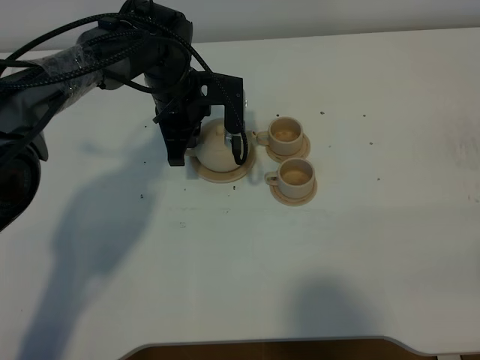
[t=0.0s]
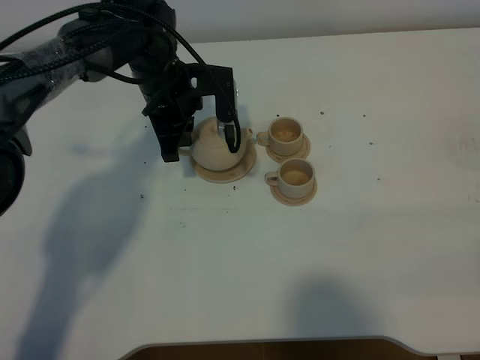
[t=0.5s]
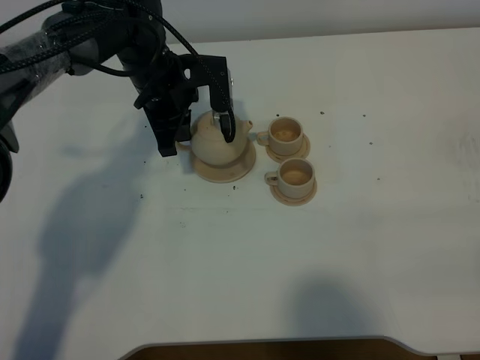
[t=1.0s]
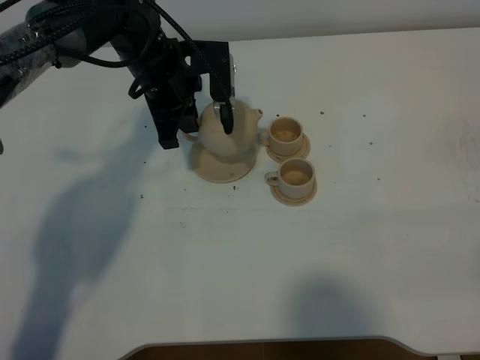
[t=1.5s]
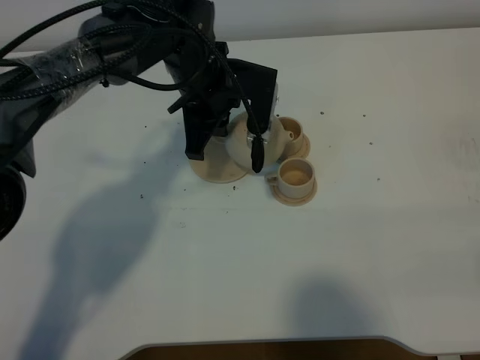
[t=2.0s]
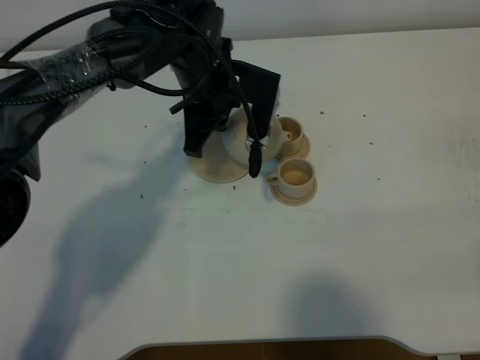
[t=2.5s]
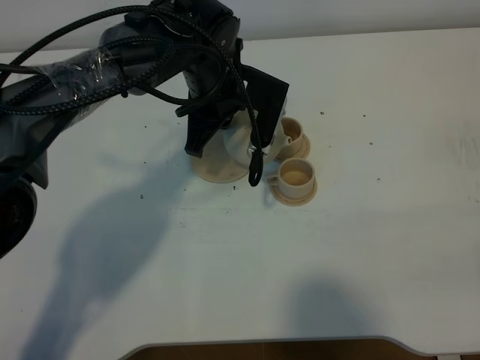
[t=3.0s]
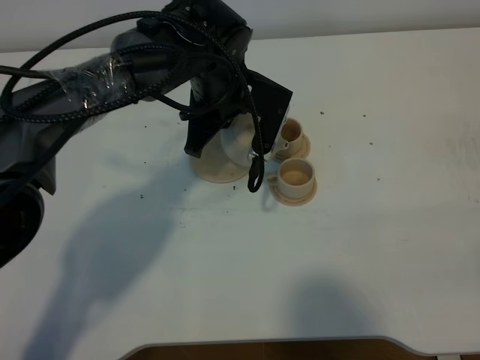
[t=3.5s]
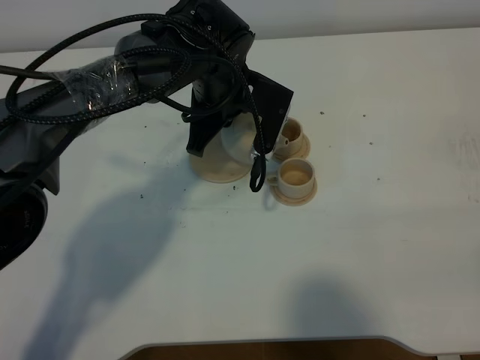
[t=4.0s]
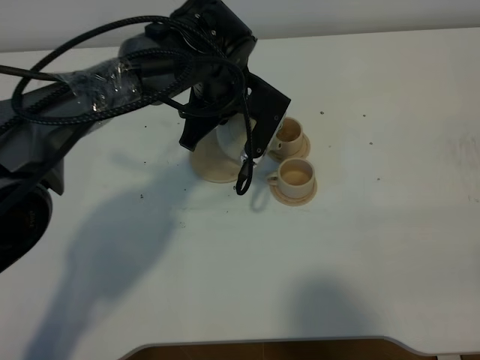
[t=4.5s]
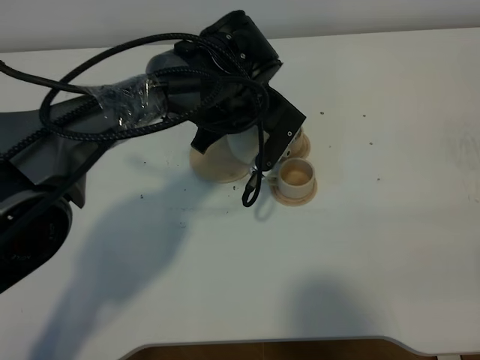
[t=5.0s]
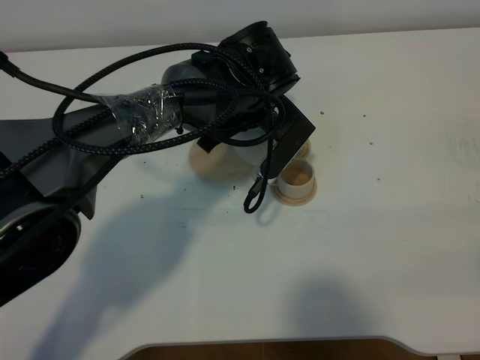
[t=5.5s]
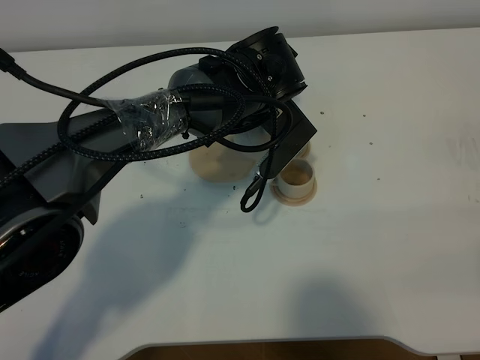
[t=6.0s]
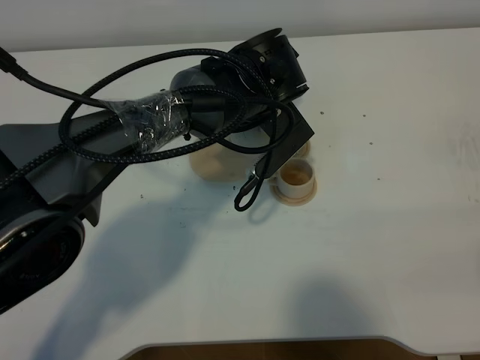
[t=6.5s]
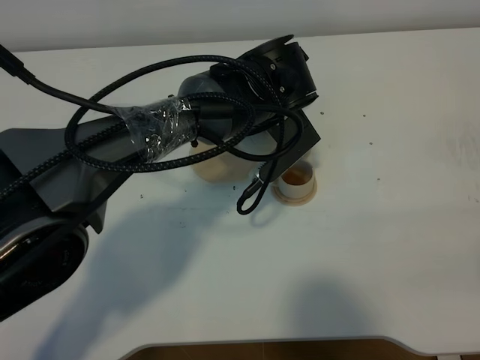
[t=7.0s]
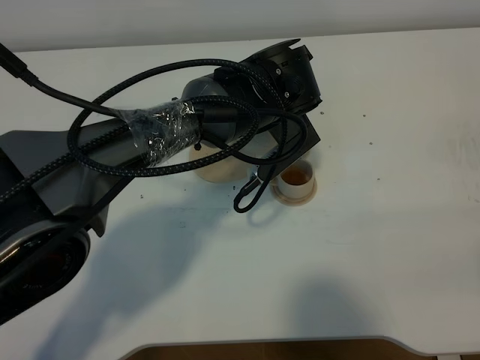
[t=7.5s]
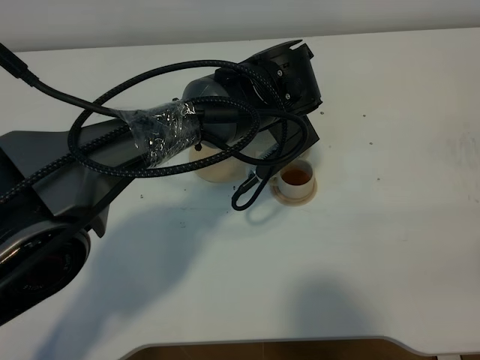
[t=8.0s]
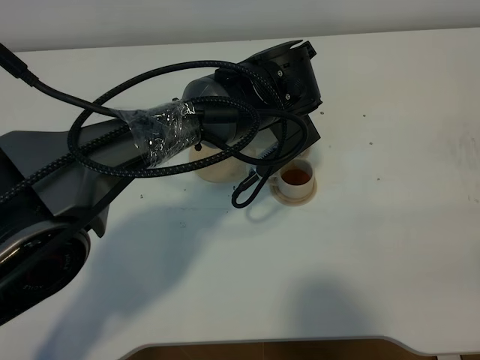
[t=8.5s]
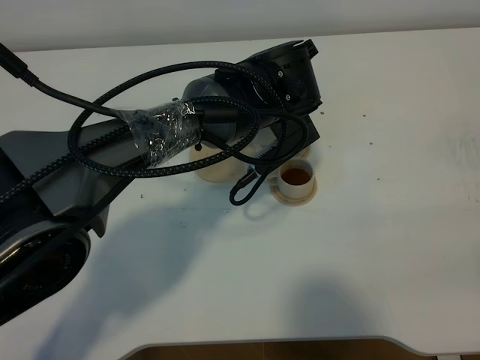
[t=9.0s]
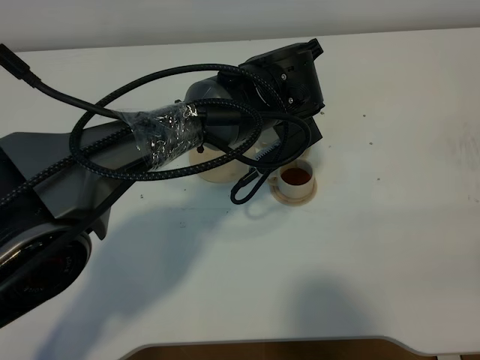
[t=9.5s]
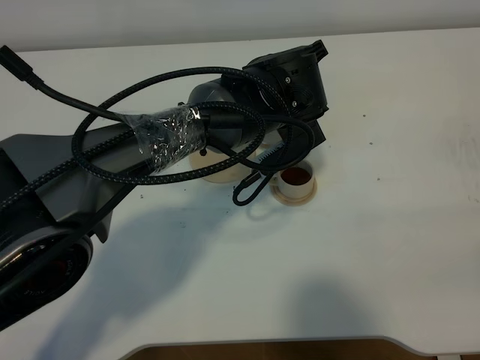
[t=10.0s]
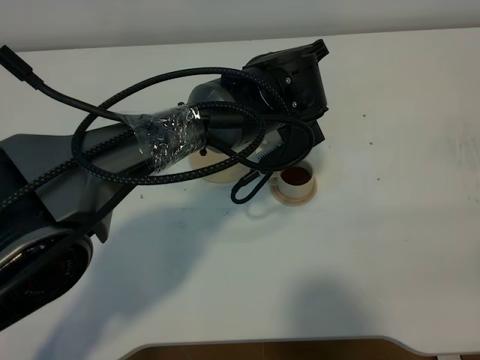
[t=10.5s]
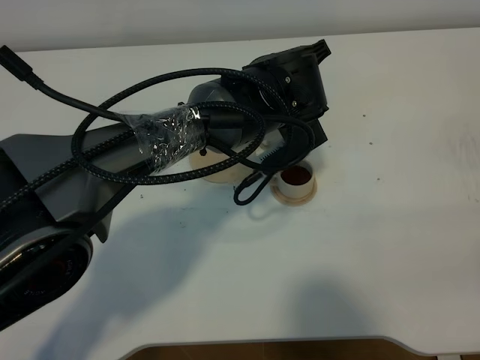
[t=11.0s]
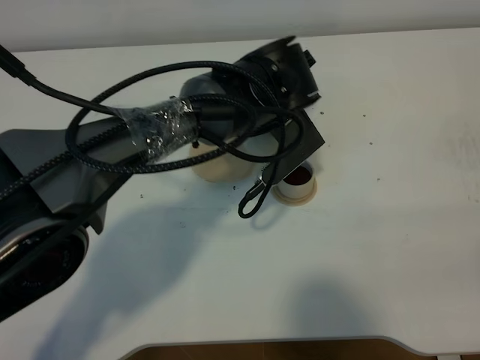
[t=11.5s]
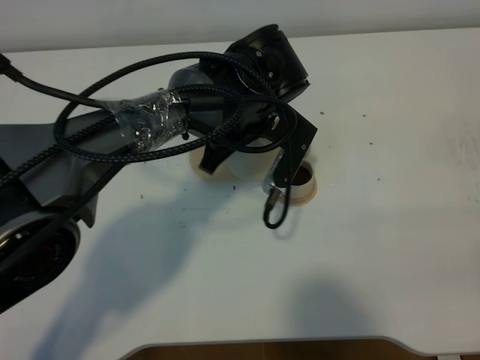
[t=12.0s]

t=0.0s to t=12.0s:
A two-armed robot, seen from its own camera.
Task of the whole recording: grasp the brown teapot and pour the tea into the two brown teacups one by one, put the brown teapot back in its original place.
t=0.0s to t=2.0s: The left gripper shifts by some 5 cm.
t=2.0s to t=4.0s: There are only small adjustments of the grippers.
t=6.0s to t=10.0s: The grippers make only small movements.

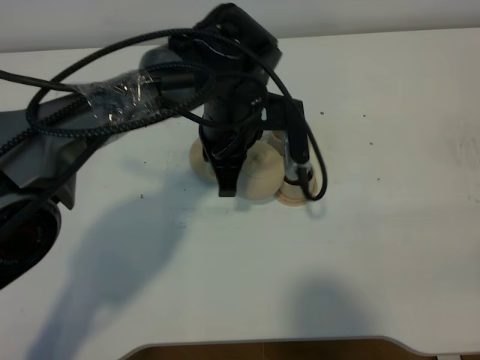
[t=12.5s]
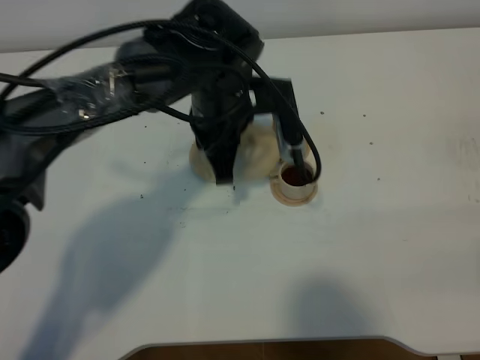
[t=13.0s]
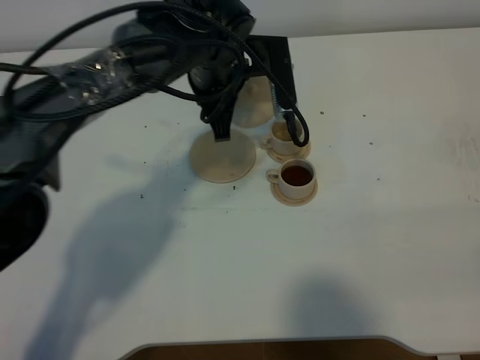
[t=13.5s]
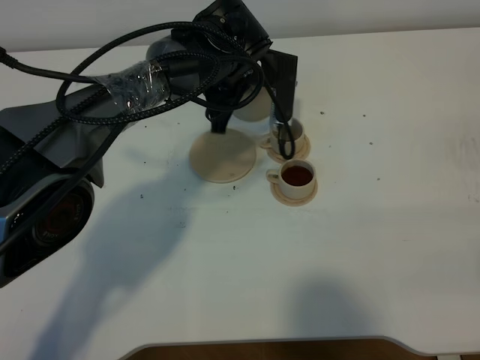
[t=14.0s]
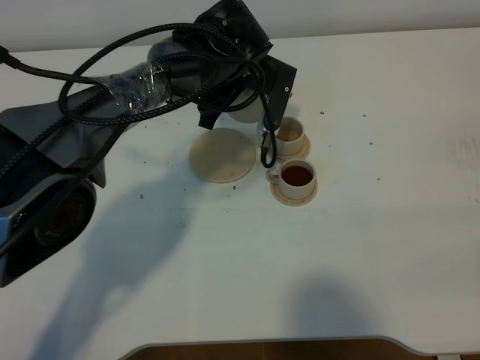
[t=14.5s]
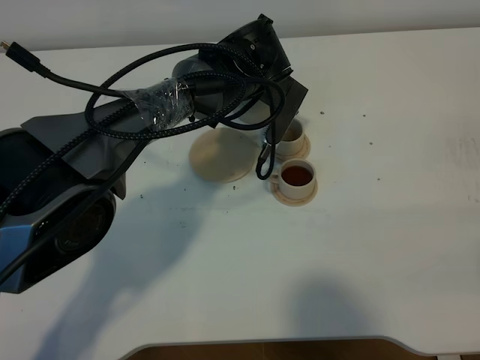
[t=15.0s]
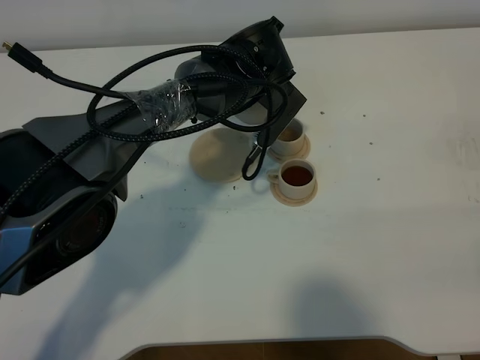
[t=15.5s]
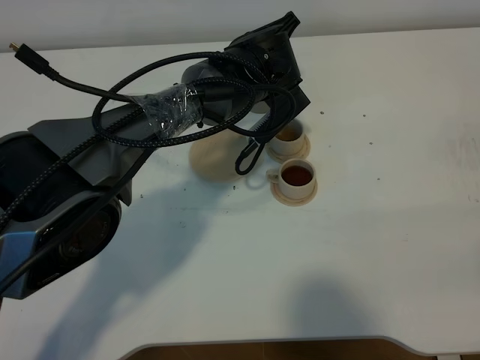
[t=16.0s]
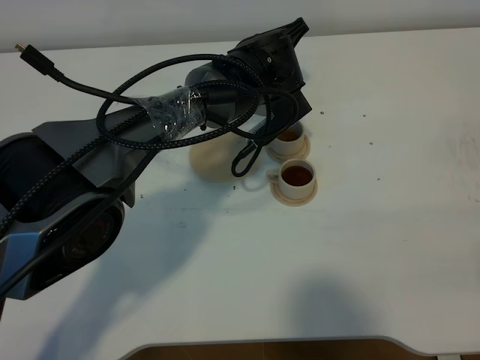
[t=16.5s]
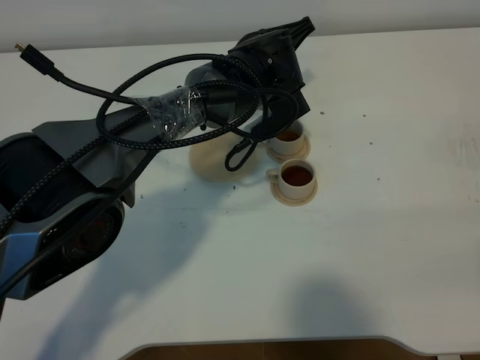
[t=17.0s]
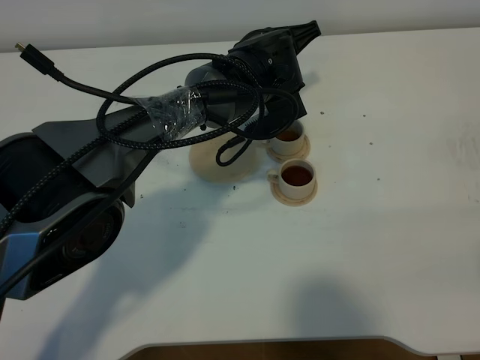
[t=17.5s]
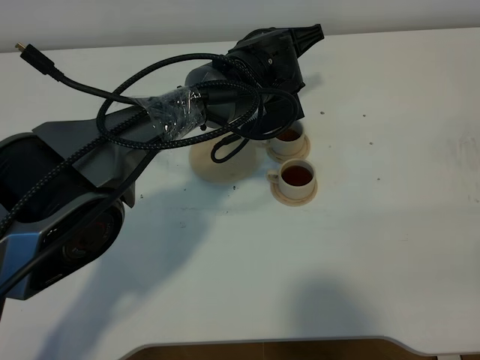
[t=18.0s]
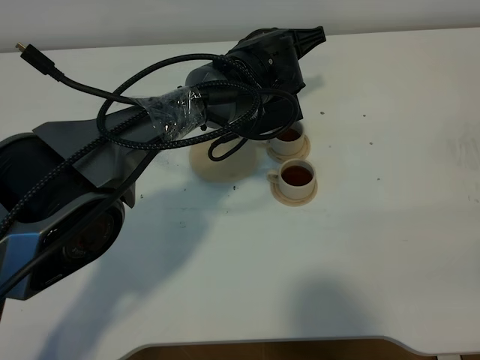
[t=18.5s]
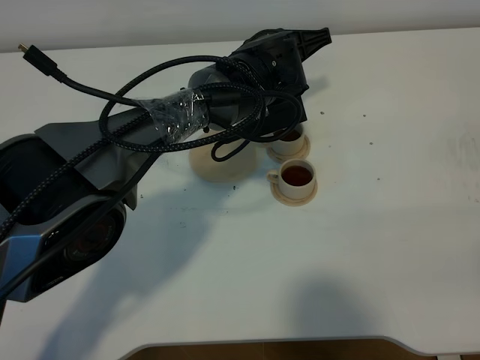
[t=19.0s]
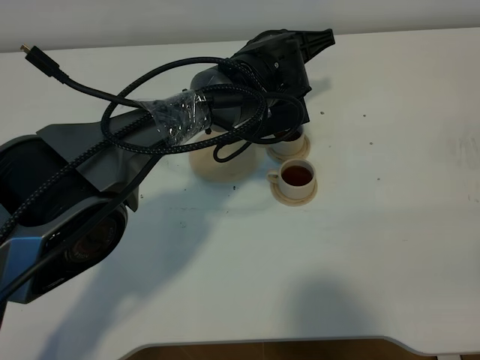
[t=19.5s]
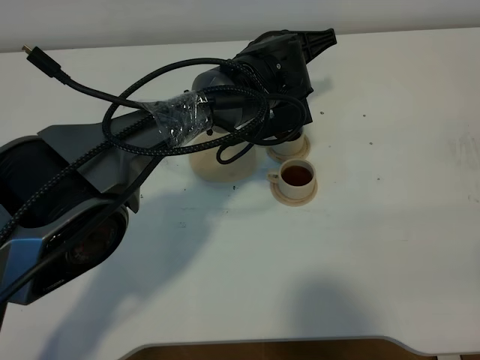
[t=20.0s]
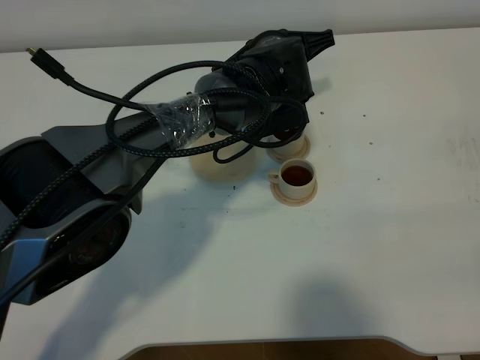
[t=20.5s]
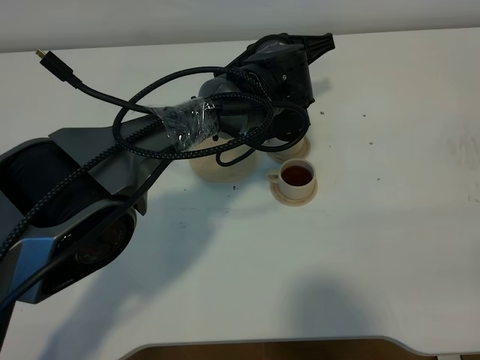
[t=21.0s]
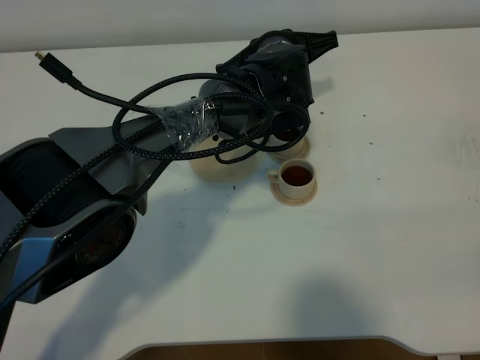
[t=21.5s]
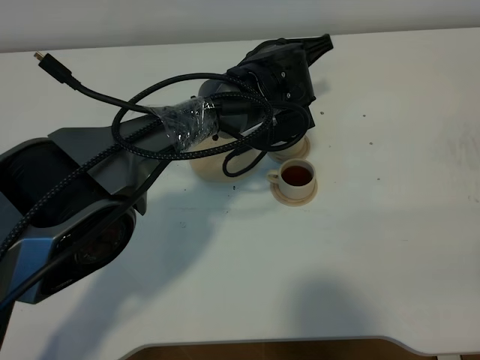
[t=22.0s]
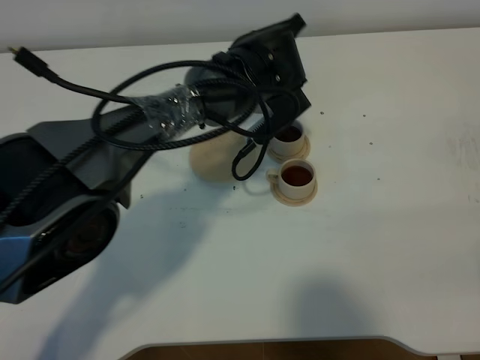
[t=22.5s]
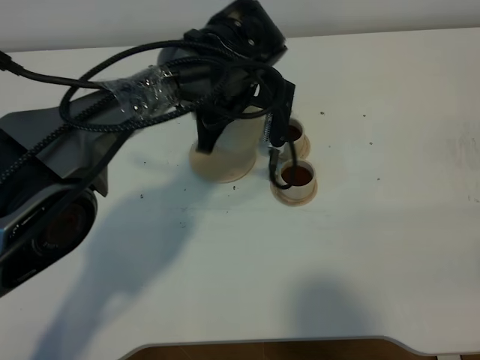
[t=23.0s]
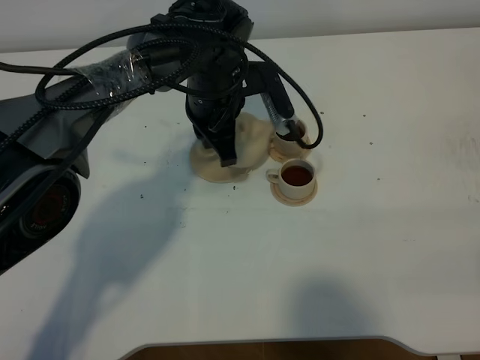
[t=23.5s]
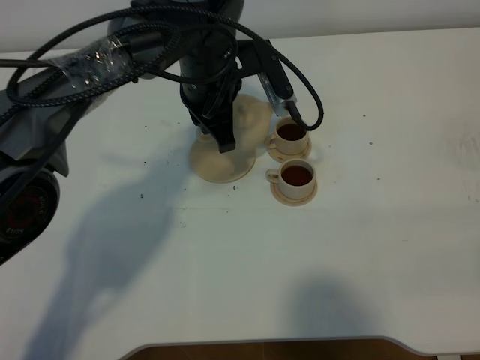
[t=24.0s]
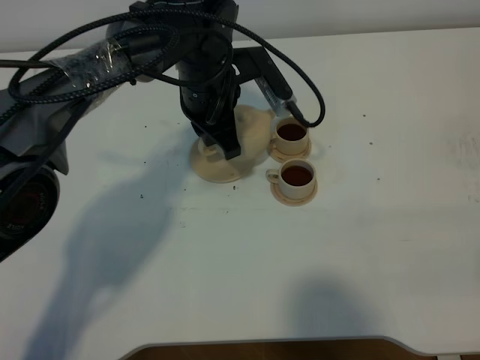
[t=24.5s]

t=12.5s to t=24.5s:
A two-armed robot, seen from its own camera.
Task of the whole recording: grasp the brown teapot and pour the tea into the two brown teacups one by one, put the brown teapot back in its original place.
Step, t=12.5s to t=22.5s: Pour tea into the teacup with the left gripper.
t=12.5s to t=14.5s: The left gripper moves forward, approximately 10 cm.
t=16.5s to t=18.5s: There are only small adjustments of the grippers.
t=18.5s to t=20.5s: The two grippers keep their place.
t=22.5s to t=24.5s: The left gripper moves to the left, some 5 cm.

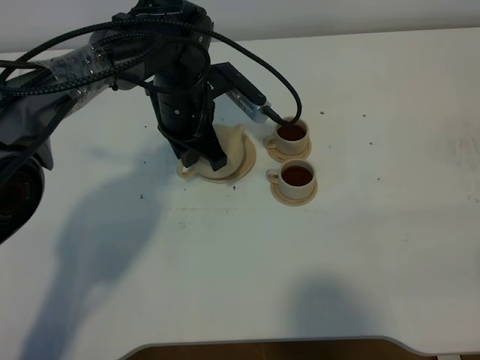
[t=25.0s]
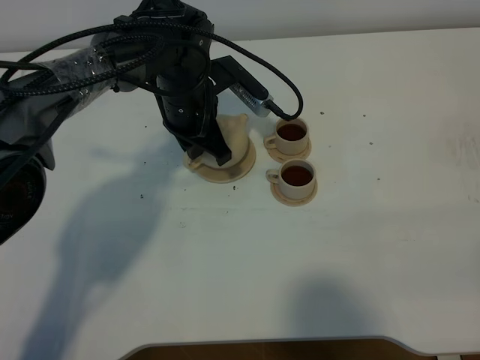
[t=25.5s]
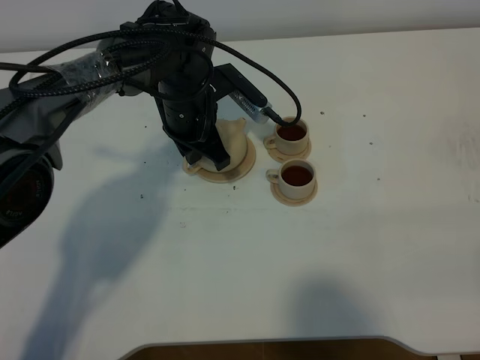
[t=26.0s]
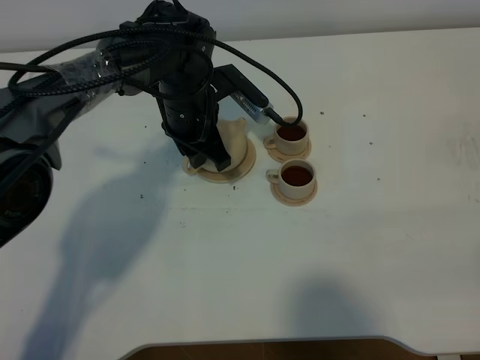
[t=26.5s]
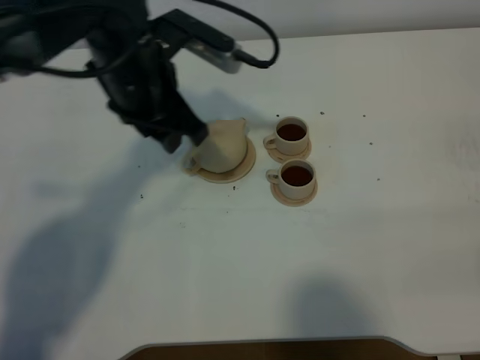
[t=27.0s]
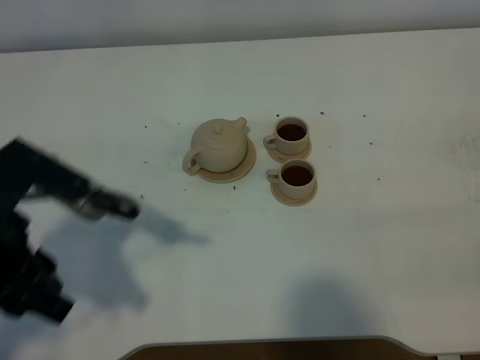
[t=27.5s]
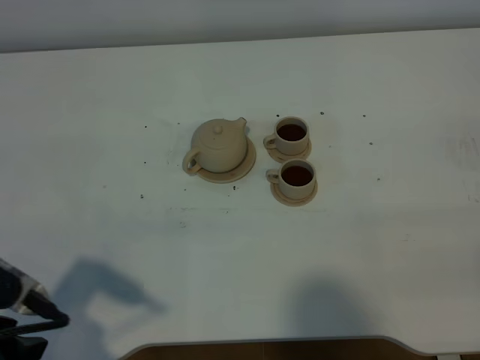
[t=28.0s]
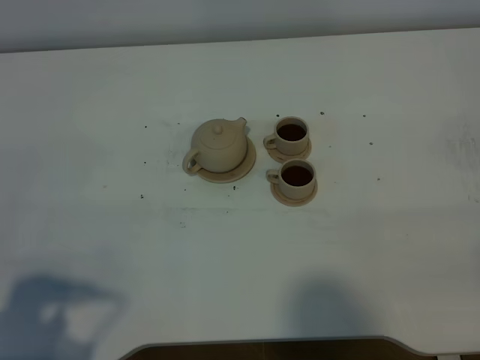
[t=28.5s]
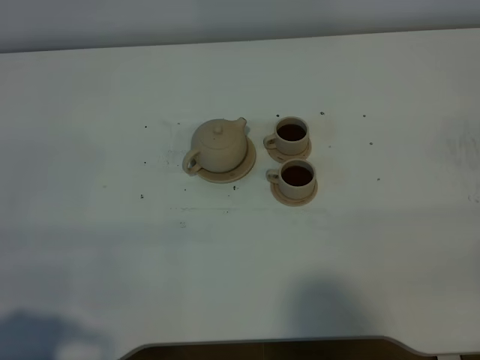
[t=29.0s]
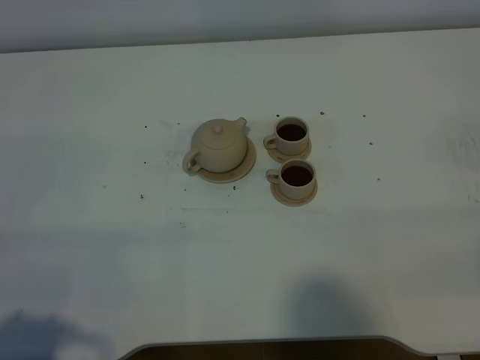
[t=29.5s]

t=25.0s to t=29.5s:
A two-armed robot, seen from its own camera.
Task of the whole recording: grasp the brown teapot and pour the tea into the two brown teacups one by one, put the brown teapot back in its original place.
t=25.0s to t=27.0s: The left gripper is displaced upward and backward by approximately 15 cm, and opens its fingers.
t=27.0s to t=29.5s: The left gripper travels backward and to the left by roughly 35 cm.
